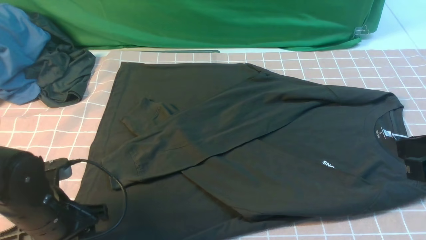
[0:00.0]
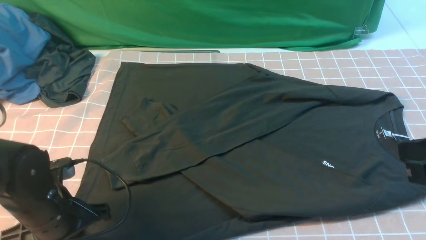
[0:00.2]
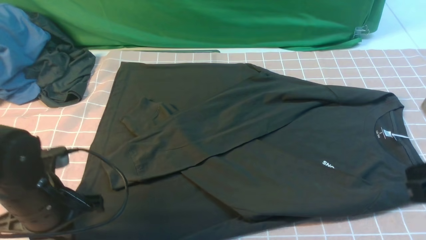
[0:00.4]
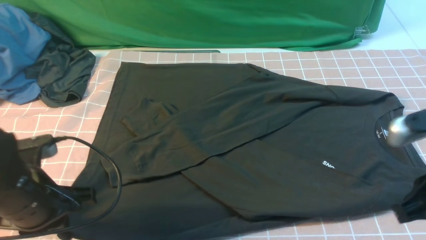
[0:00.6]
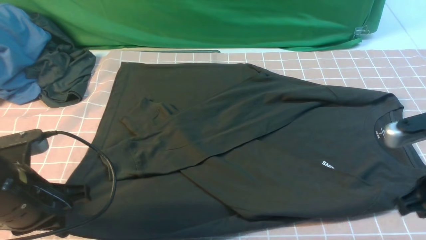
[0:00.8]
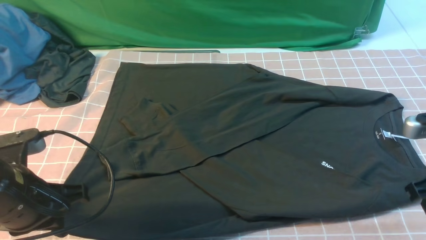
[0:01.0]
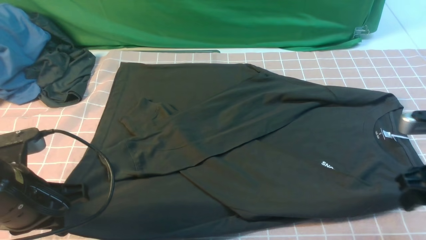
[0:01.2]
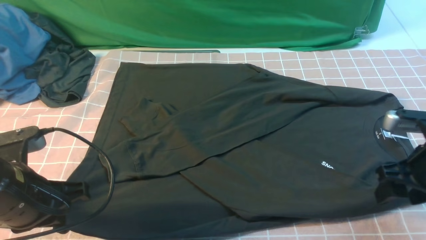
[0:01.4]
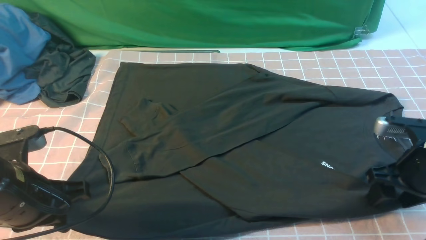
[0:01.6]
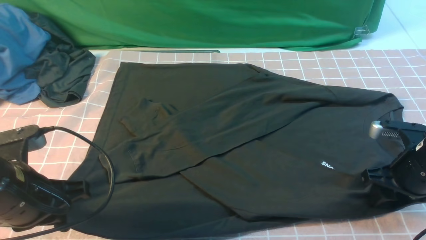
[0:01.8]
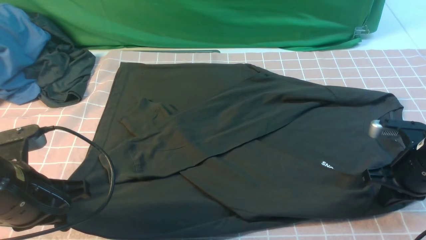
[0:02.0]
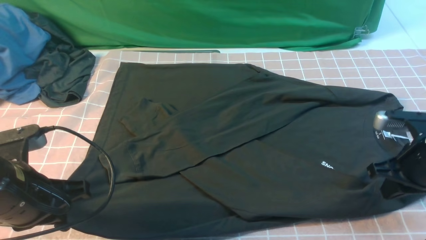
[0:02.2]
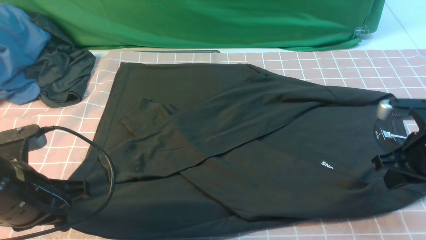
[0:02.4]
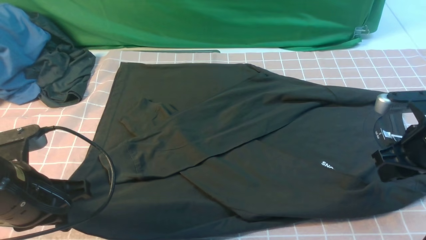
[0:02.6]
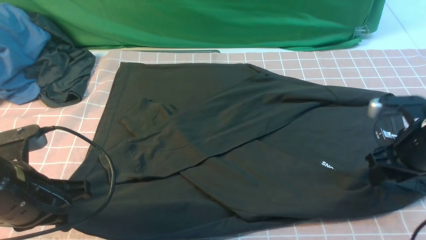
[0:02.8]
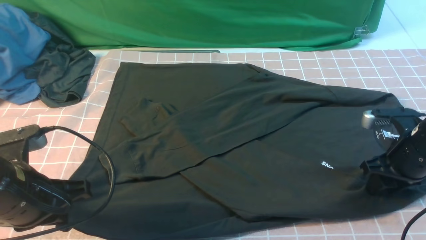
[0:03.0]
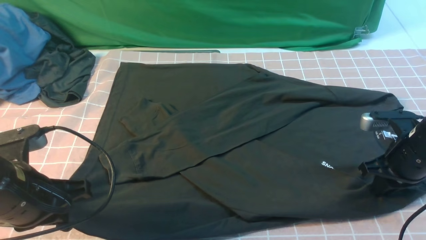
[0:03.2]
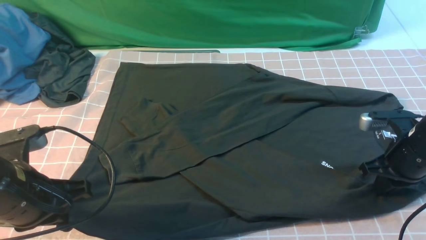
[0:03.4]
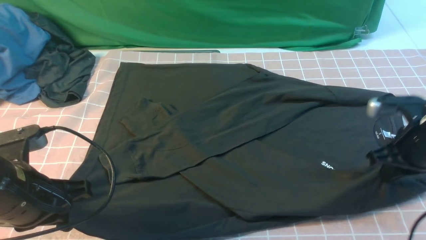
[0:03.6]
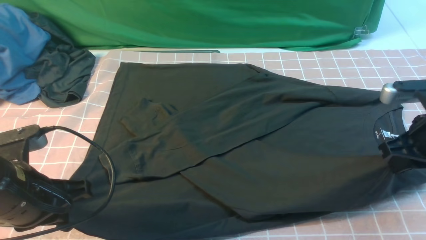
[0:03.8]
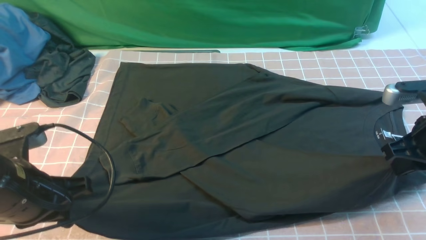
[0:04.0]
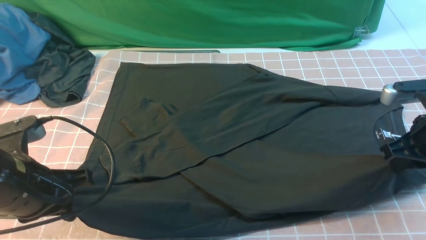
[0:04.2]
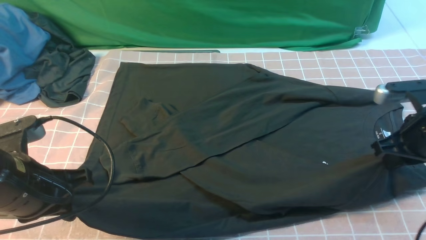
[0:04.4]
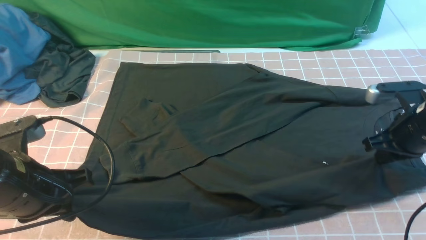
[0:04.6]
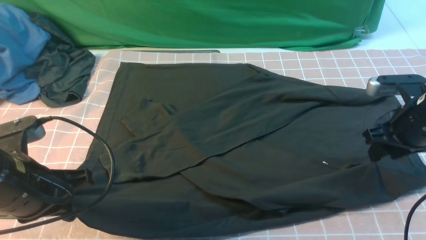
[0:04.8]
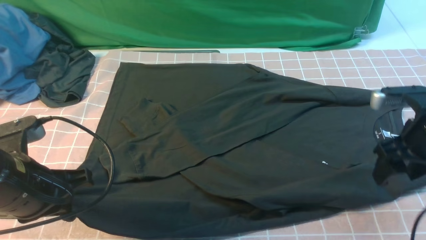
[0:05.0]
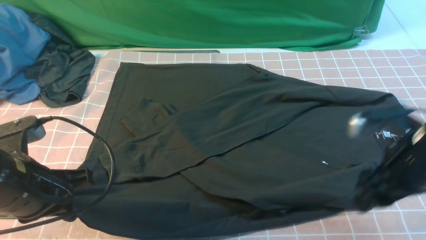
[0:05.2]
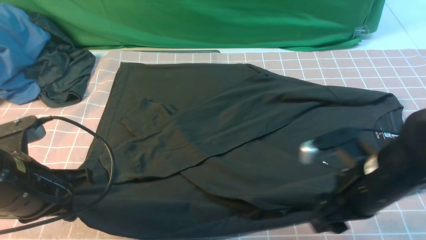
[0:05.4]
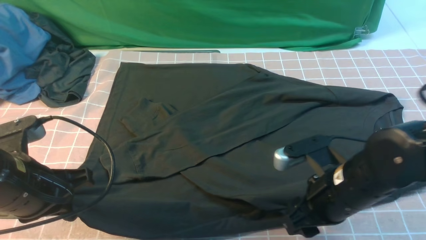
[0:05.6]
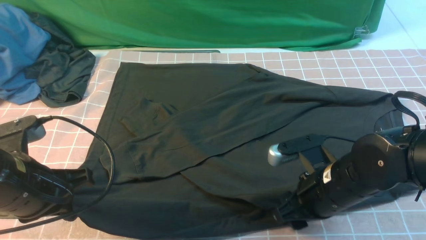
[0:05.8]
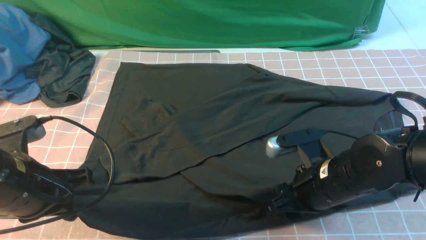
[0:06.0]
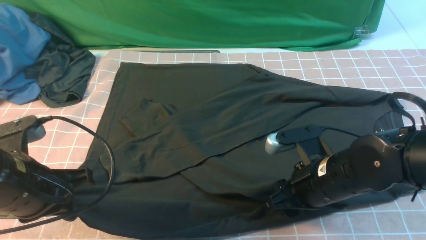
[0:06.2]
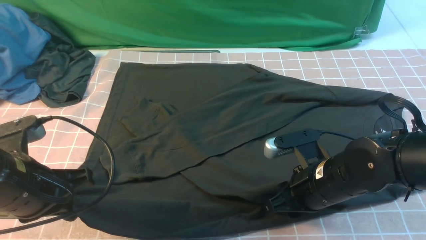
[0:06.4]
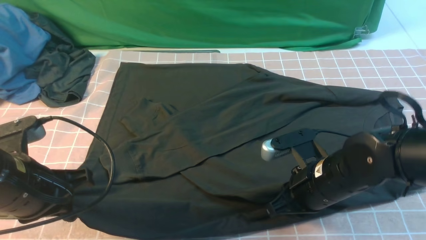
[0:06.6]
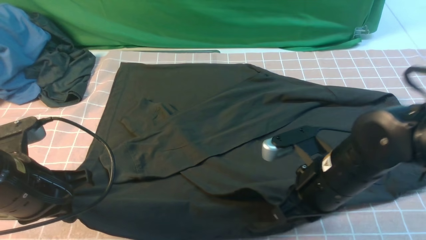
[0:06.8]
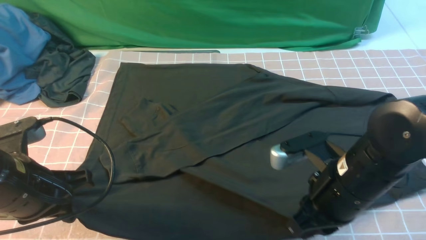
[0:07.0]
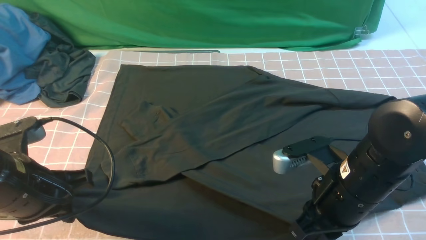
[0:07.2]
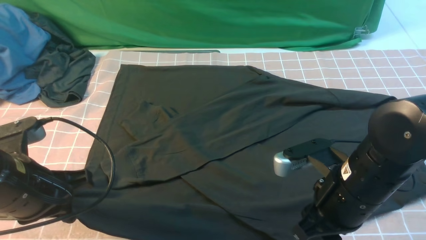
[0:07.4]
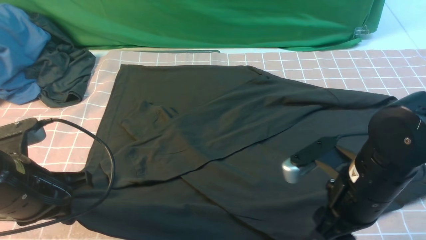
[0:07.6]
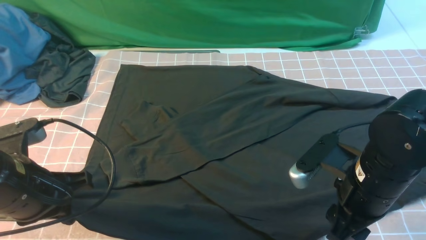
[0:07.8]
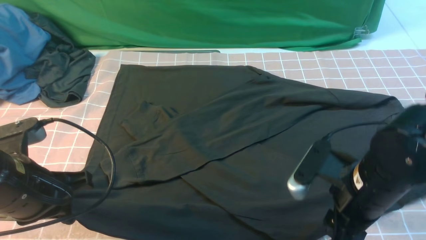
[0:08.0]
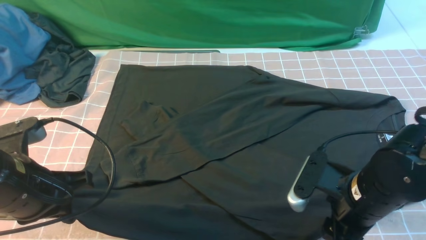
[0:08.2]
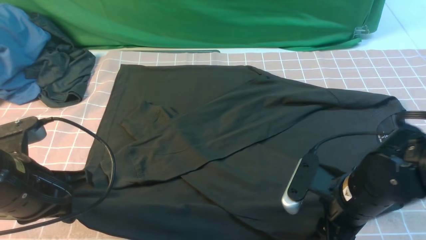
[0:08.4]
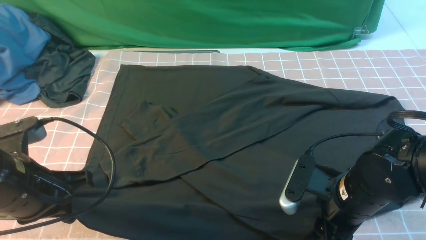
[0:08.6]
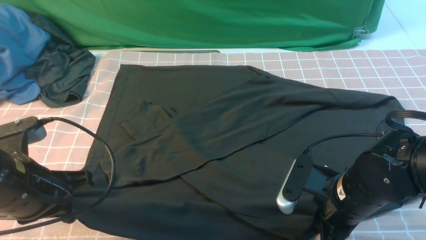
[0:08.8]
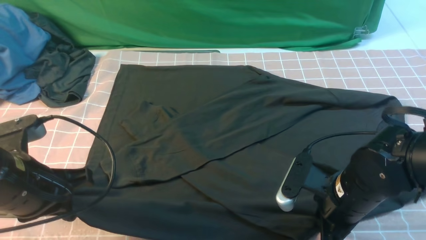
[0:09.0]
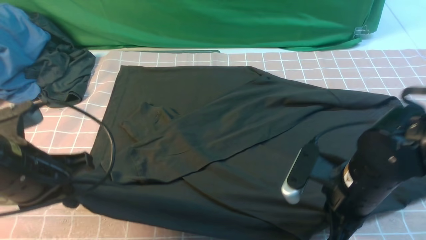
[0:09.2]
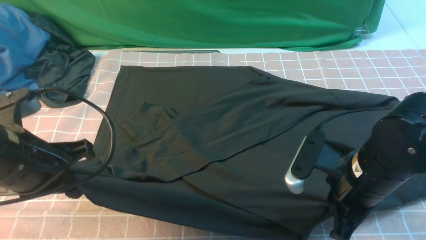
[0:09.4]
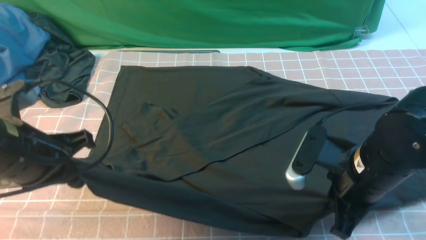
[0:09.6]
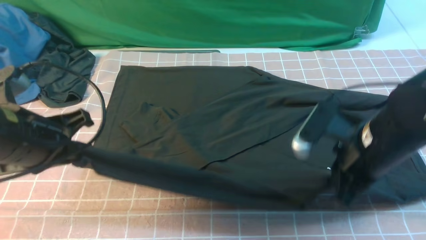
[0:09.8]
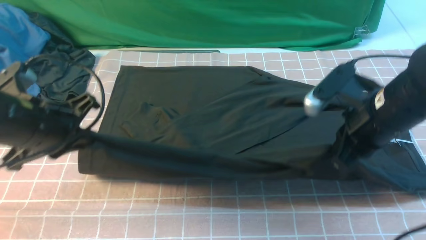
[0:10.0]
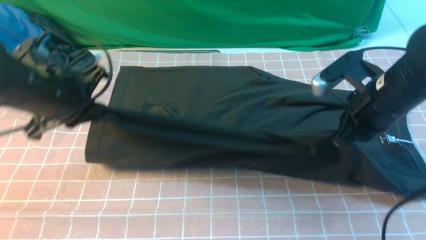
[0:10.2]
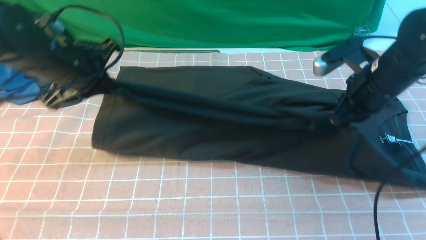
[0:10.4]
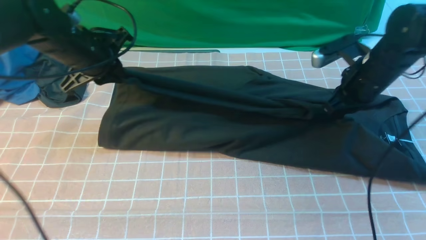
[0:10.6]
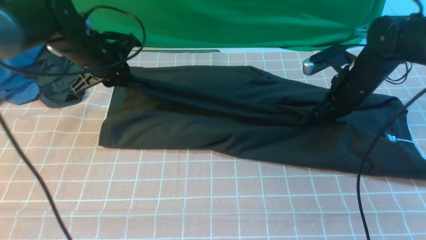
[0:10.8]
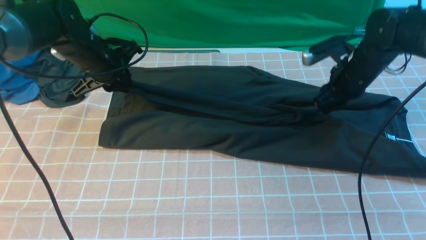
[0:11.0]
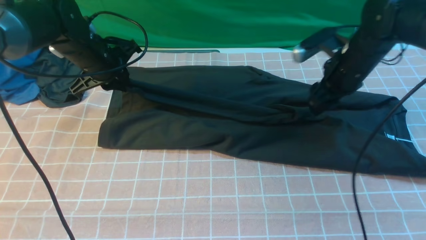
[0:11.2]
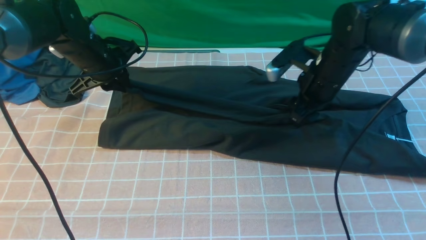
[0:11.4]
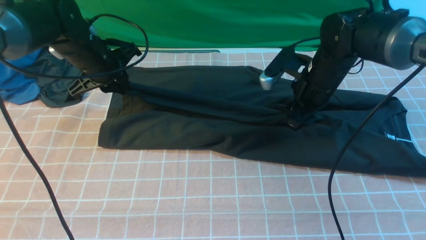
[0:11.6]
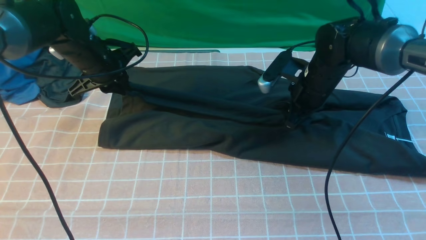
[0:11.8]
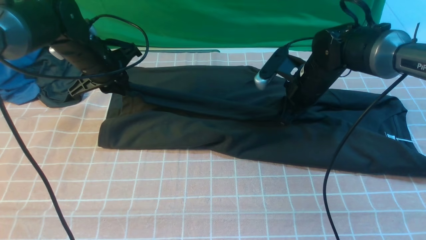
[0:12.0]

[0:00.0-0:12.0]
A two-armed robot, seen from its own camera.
Step, 0:00.0 to 0:09.6: use both arms simultaneously to clamp the lower edge of the clothing fabric.
0:00.0 to 0:01.6: The right gripper is displaced downward and forward by some 20 cm, and opens. The left gripper moves upward, about 5 cm, and closes up.
0:01.6 to 0:03.0: The right gripper closes, then reopens.
0:03.0 to 0:04.4: The right gripper closes its fingers.
0:04.4 to 0:06.0: The right gripper moves to the left, roughly 15 cm, and opens up.
0:06.0 to 0:07.6: The right gripper moves some 5 cm, and closes, then reopens.
0:07.6 to 0:09.0: The right gripper closes up.
0:09.0 to 0:10.4: The left gripper moves forward, some 15 cm. The right gripper moves forward, upward and to the right, roughly 15 cm.
0:10.4 to 0:12.0: The left gripper goes some 5 cm forward; the right gripper moves to the left, forward and downward, about 10 cm, and opens up.

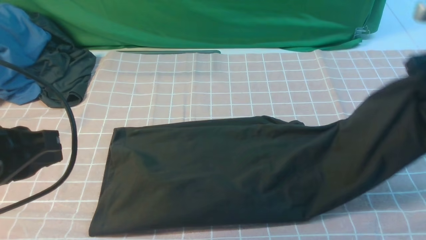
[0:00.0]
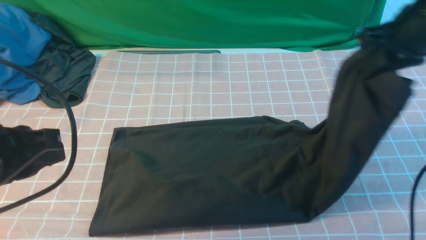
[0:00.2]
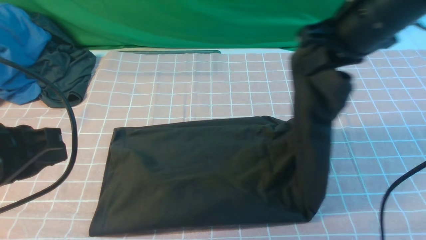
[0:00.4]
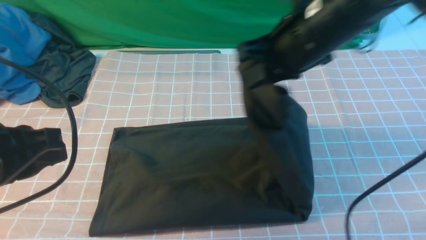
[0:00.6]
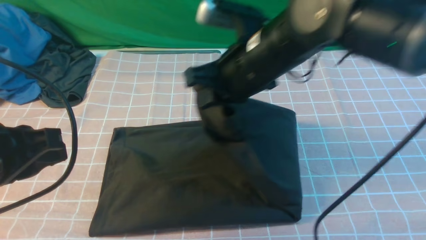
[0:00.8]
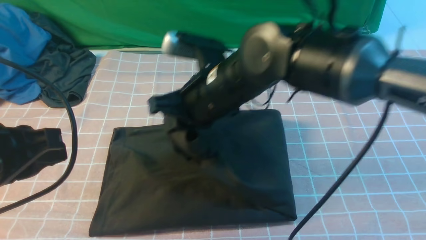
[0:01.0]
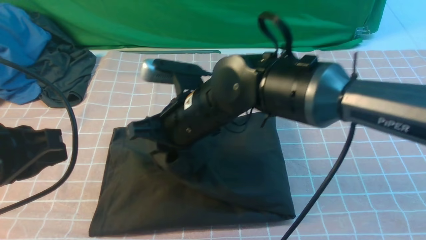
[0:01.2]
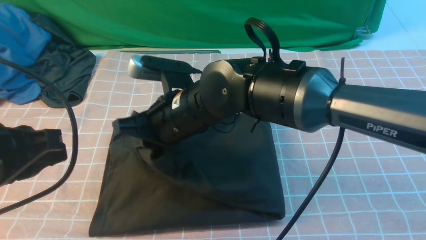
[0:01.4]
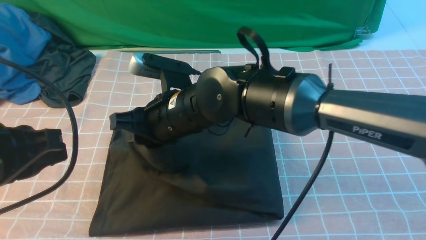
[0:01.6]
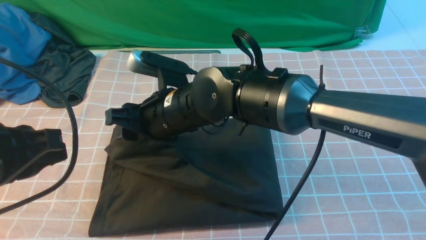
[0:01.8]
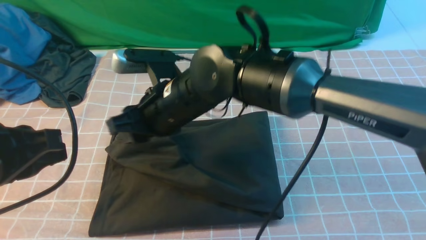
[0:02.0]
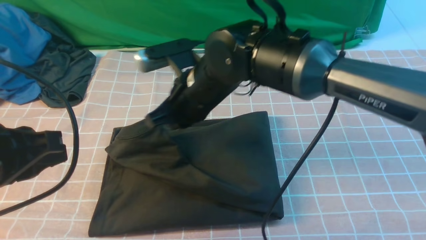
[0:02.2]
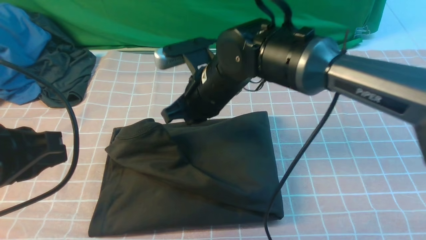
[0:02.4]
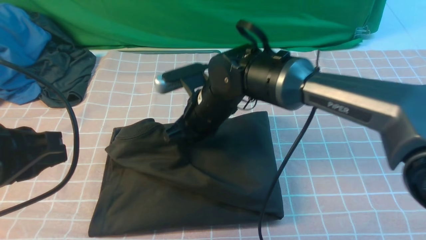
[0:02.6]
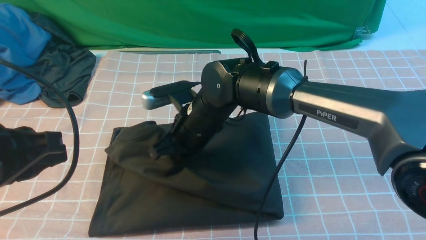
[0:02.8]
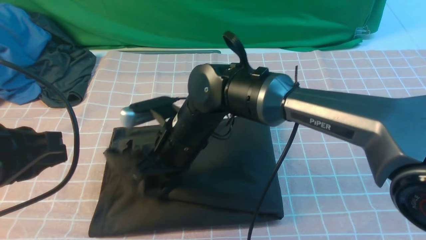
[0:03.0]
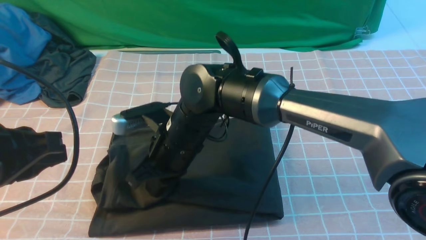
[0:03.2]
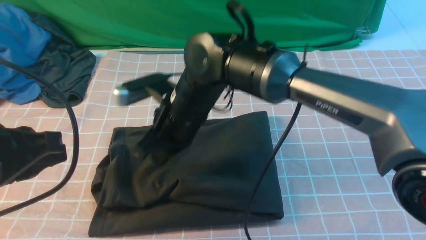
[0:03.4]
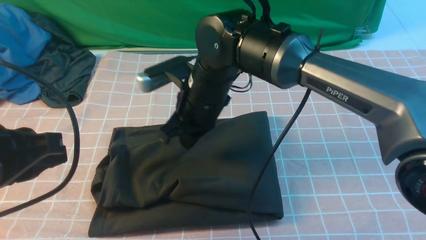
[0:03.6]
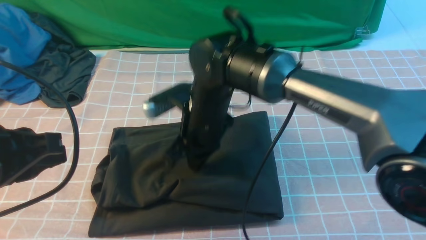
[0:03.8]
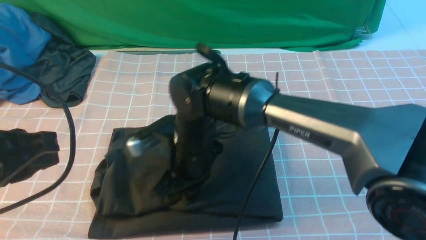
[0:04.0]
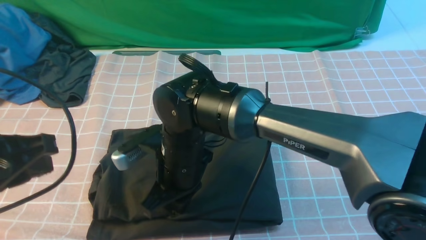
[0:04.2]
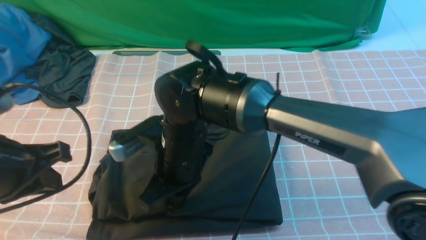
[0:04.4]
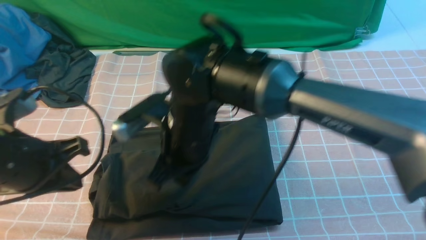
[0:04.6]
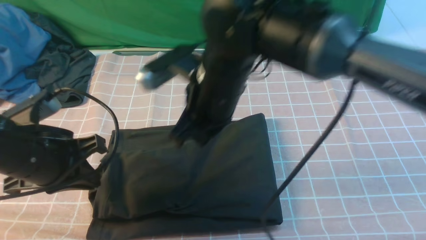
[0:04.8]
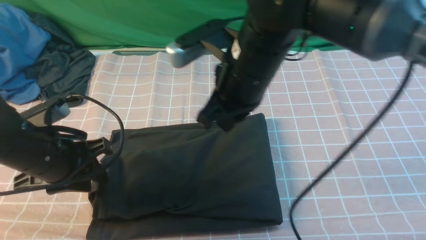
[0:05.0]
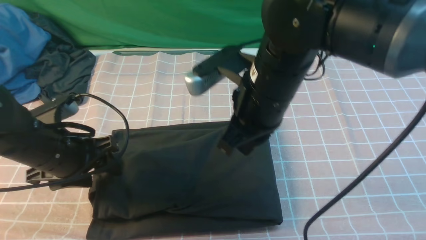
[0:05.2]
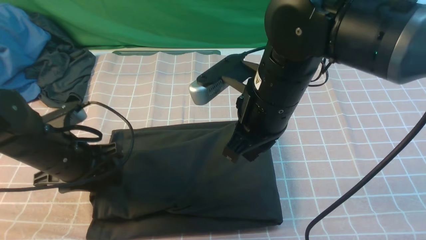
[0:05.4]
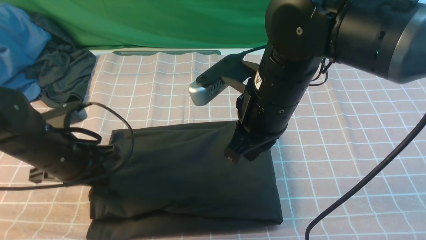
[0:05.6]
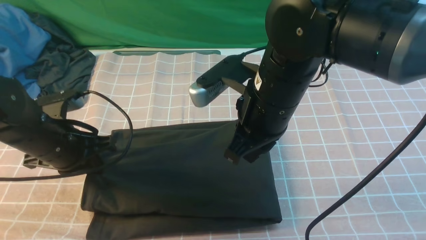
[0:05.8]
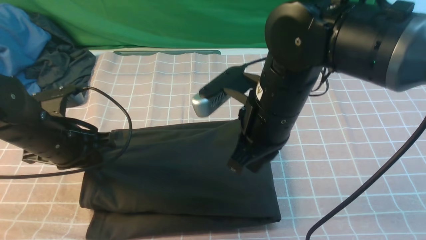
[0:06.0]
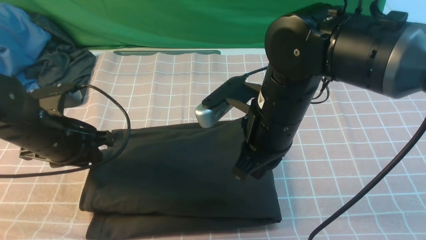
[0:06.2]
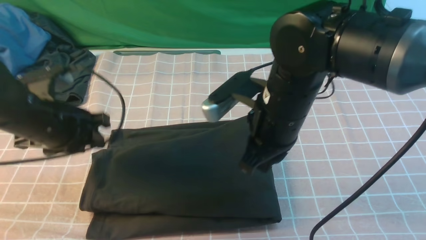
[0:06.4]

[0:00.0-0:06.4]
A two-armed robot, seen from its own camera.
Step, 0:00.0 to 0:04.6: use the right arm to drag the right edge of the fabric to the left and folds it over the left edge.
0:00.0 to 0:01.6: The right gripper is displaced to the left by about 35 cm.
0:01.6 to 0:03.2: The right gripper closes up.
0:03.2 to 0:04.8: The left gripper moves downward and forward, approximately 10 cm. The right gripper shifts roughly 10 cm upward and to the right.
0:04.8 to 0:06.4: The left gripper travels forward by roughly 5 cm; the right gripper shifts about 10 cm to the right.
